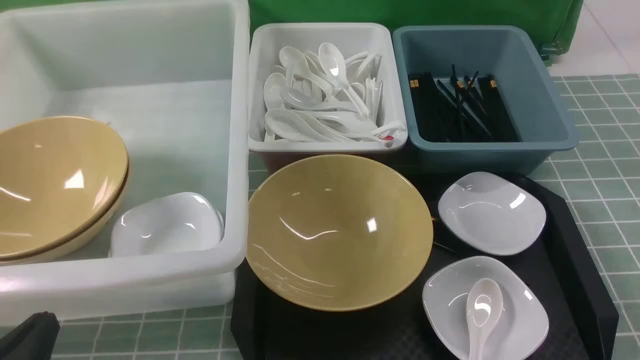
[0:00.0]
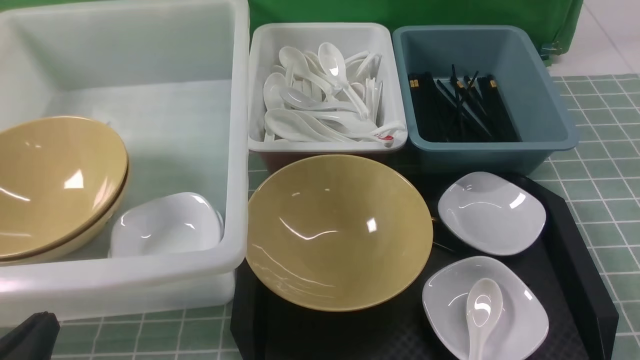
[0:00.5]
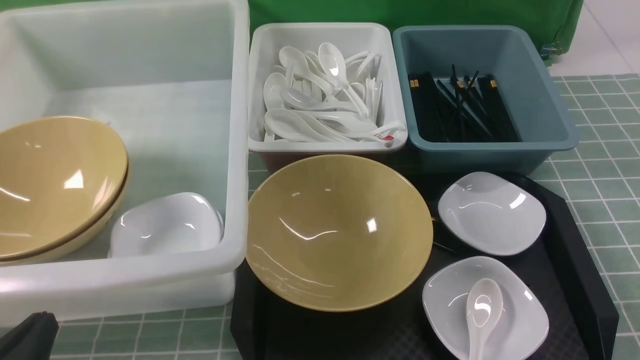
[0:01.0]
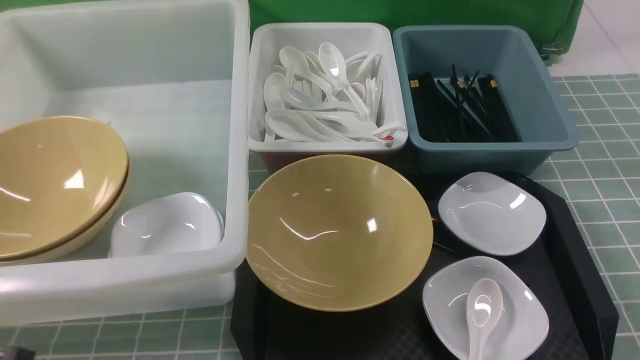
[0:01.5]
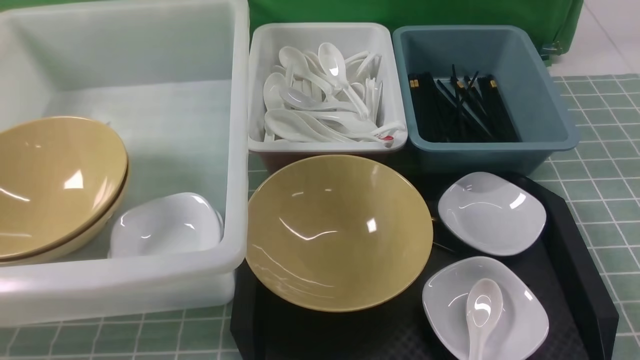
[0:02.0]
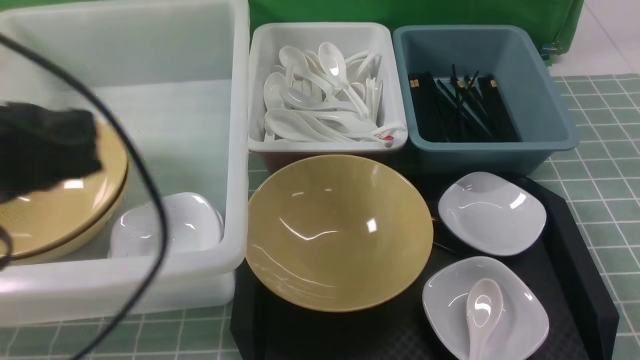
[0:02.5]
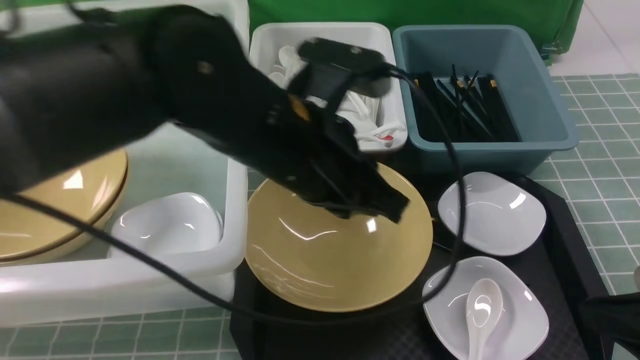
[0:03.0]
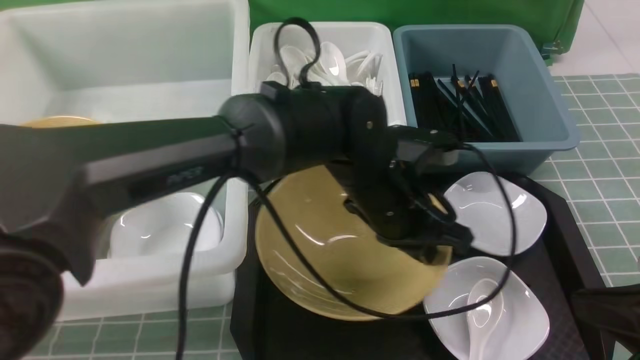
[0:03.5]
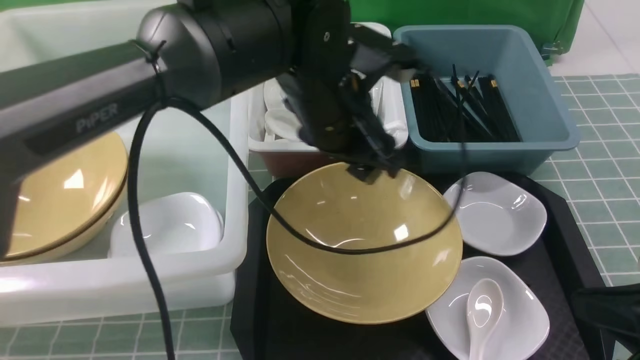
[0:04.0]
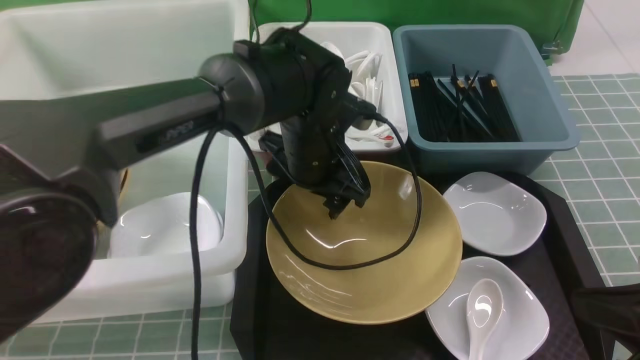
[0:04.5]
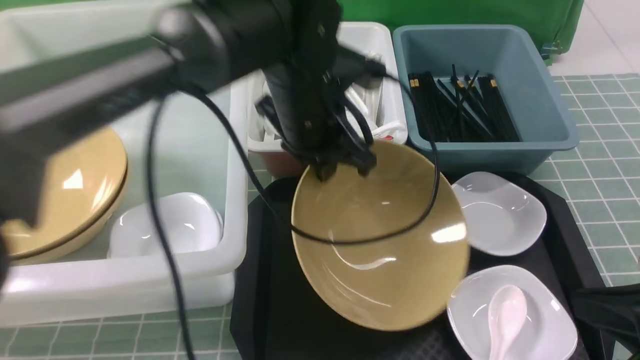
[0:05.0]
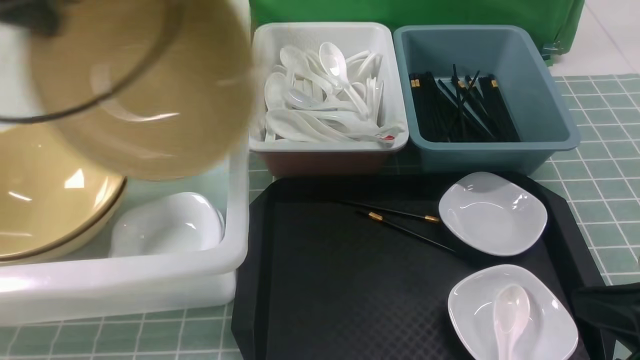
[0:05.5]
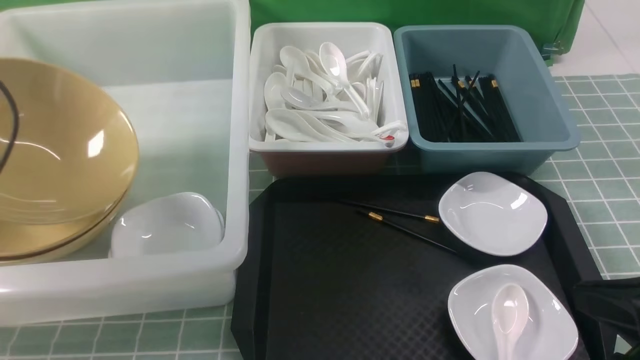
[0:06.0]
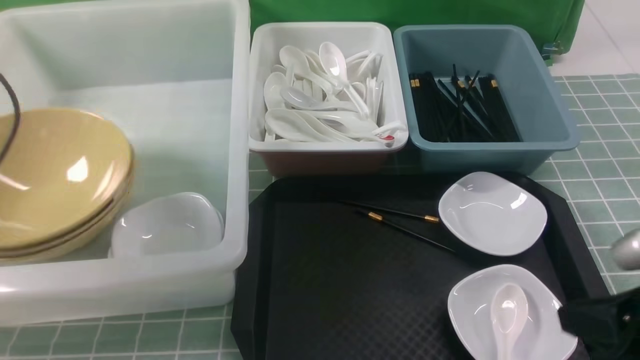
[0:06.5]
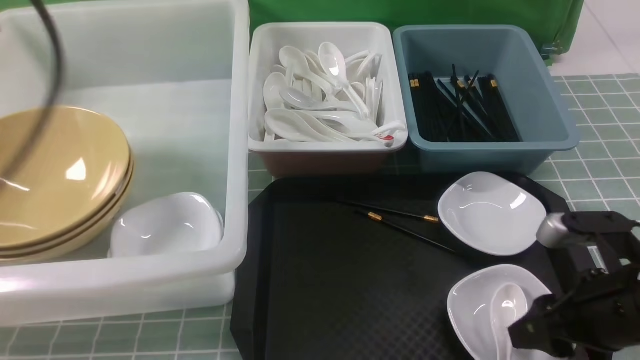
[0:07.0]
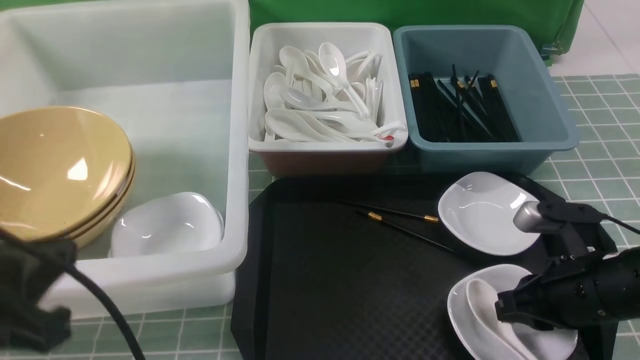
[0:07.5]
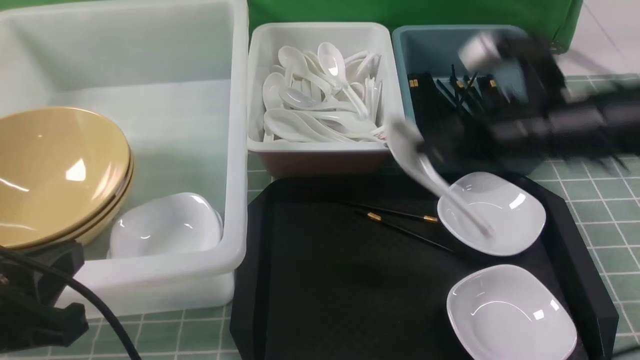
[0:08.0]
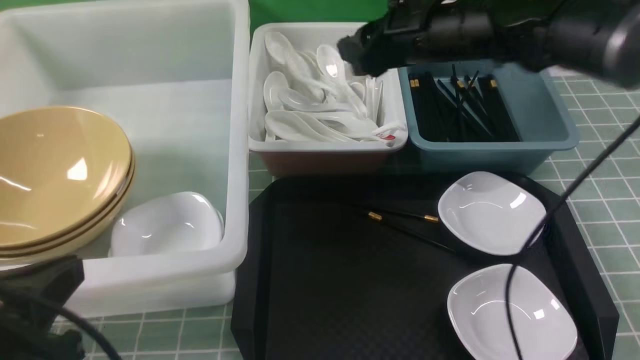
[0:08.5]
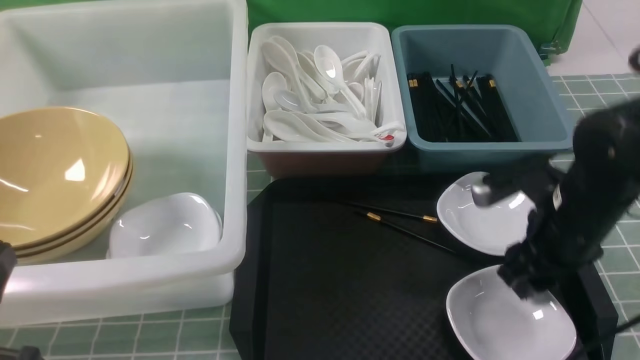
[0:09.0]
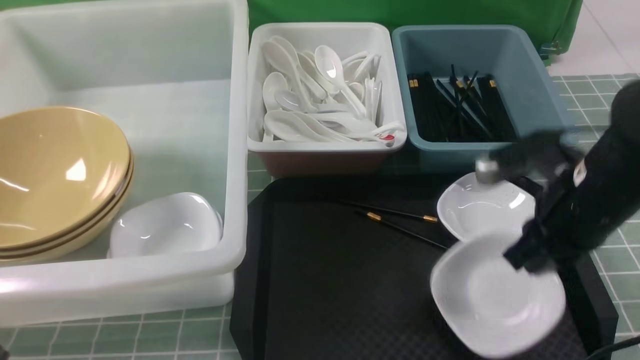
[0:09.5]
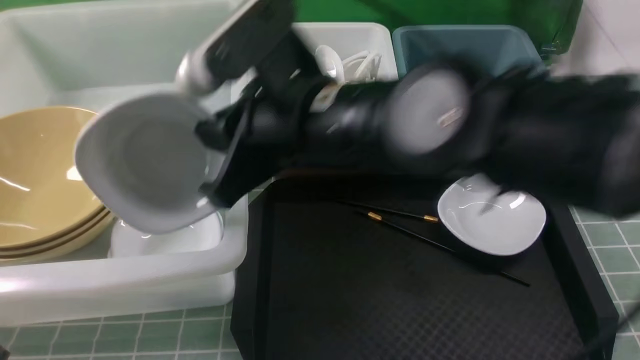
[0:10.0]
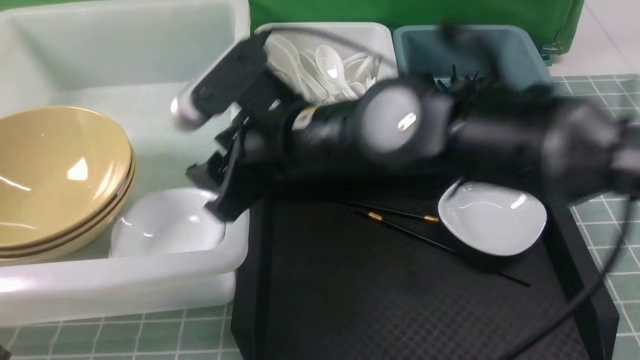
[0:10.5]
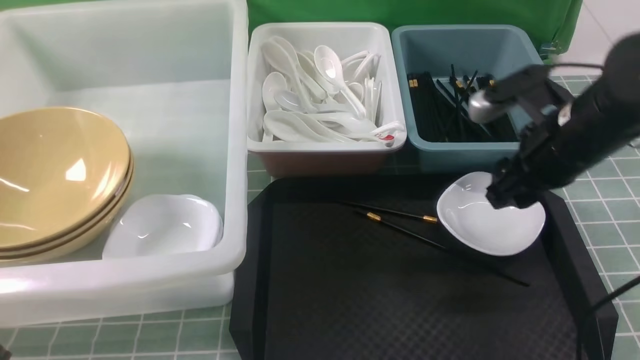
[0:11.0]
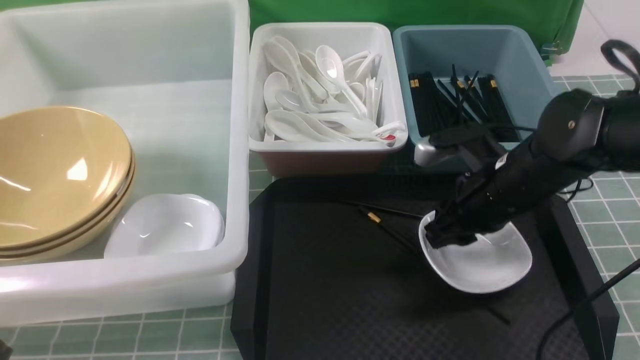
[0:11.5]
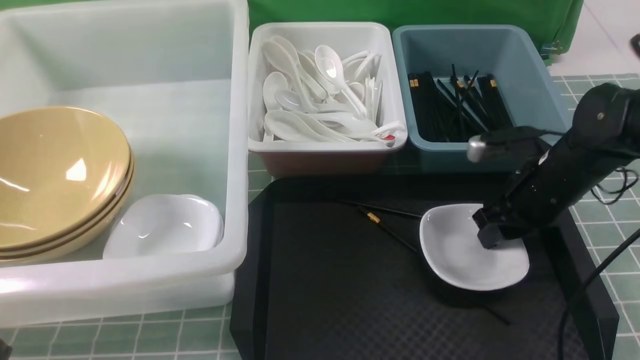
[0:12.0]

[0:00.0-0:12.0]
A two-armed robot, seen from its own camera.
Task of the whole recording: on blue table put chopsticks spoon bowls plates into blue grey white boxes.
Step, 0:00.0 to 0:05.0: use the left arm to grab the yellow noodle bowl on the left.
Step, 0:05.5 to 0:06.5: use the left arm to put the noodle bowl into the large storage box on the left.
Step, 0:07.0 to 0:07.5: use the right arm to grab the soup spoon in the middle.
Step, 0:08.0 to 0:08.5: use the right arm to put the soup spoon into the small storage box in the middle.
Step, 0:09.0 to 0:09.5: use the right arm to grab the plate.
Step, 0:10.0 to 0:10.5: use the right arm to put the plate into the large storage box on the left.
0:00.0 to 0:02.0: The left gripper shifts some 15 cm upward.
0:02.0 to 0:04.0: The right gripper heads forward and downward, covering about 10 cm; the left gripper goes roughly 40 cm forward and to the right, and opens.
0:04.0 to 0:06.0: The left gripper moves to the left, some 40 cm, and closes up.
0:06.0 to 0:08.0: The left gripper is displaced backward and to the right by about 20 cm, and opens, then closes once more. The right gripper moves forward and to the left, some 20 cm, and opens, then closes again.
0:08.0 to 0:10.0: The left gripper travels backward by approximately 5 cm, while the right gripper is displaced to the left by approximately 15 cm, and opens, then closes once more.
0:10.0 to 0:12.0: The right gripper goes roughly 25 cm to the right and downward, and opens up.

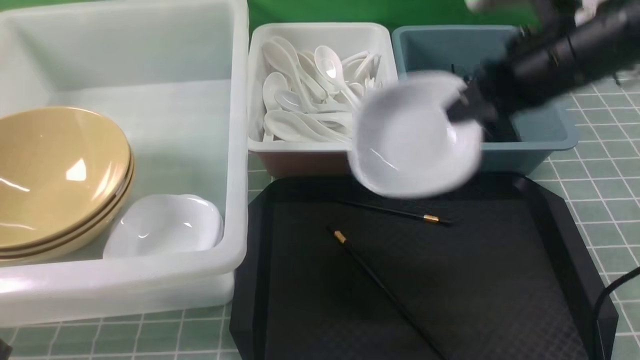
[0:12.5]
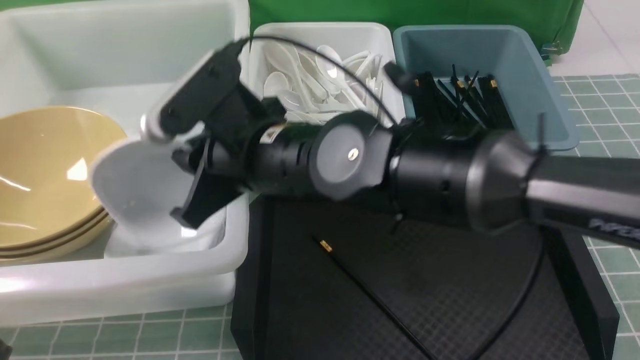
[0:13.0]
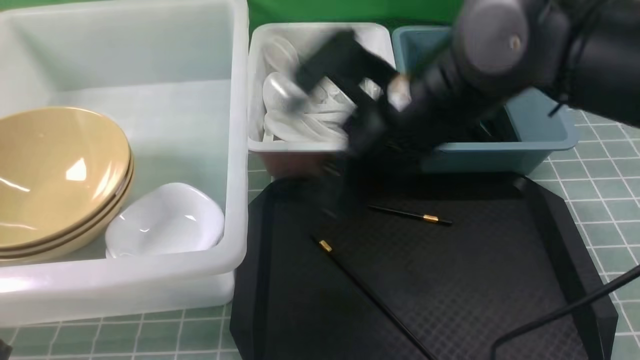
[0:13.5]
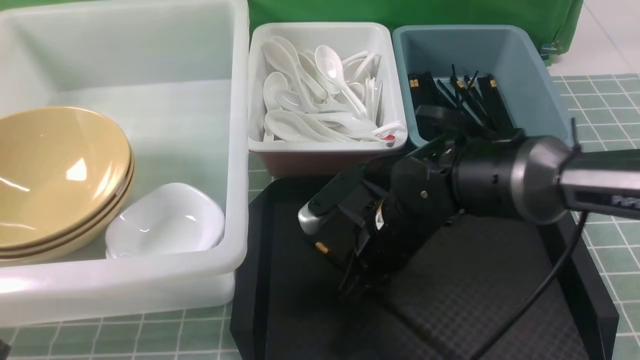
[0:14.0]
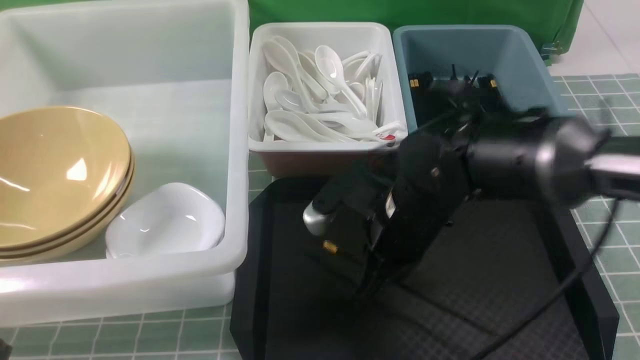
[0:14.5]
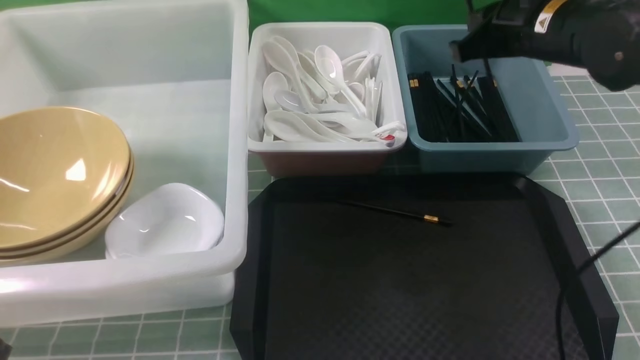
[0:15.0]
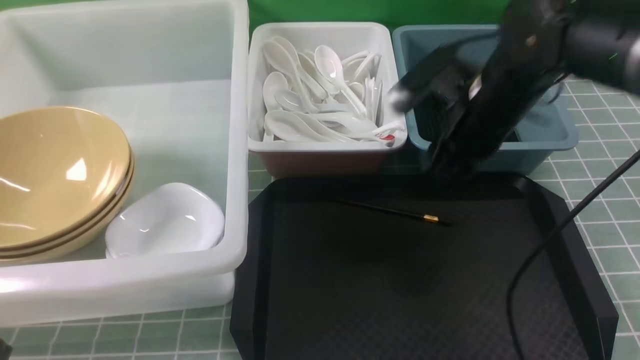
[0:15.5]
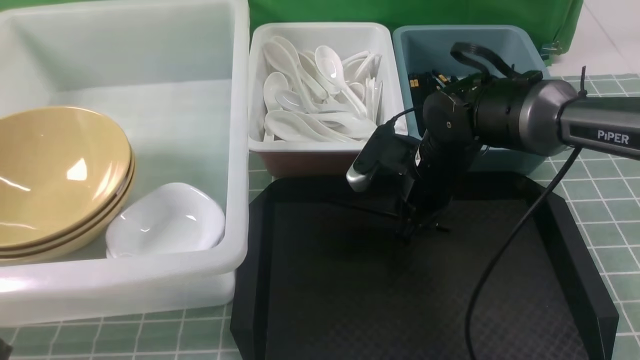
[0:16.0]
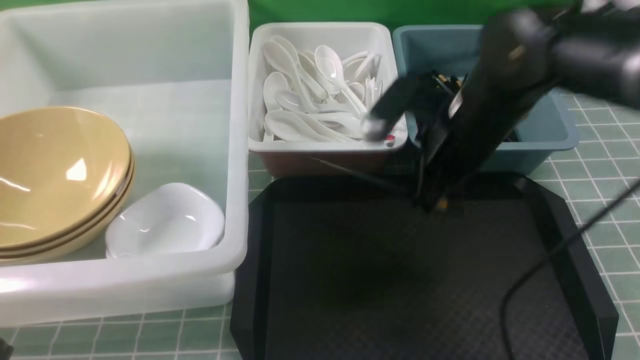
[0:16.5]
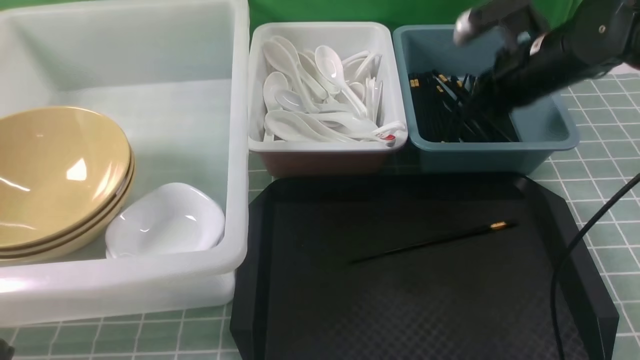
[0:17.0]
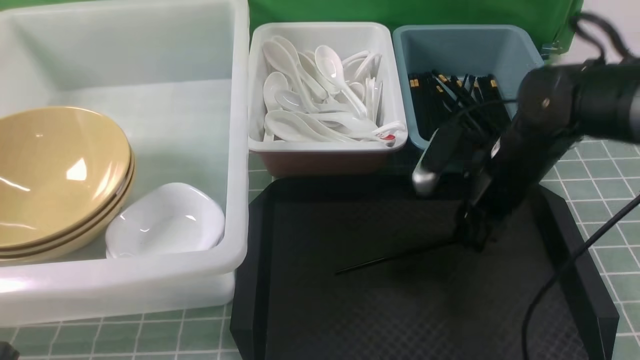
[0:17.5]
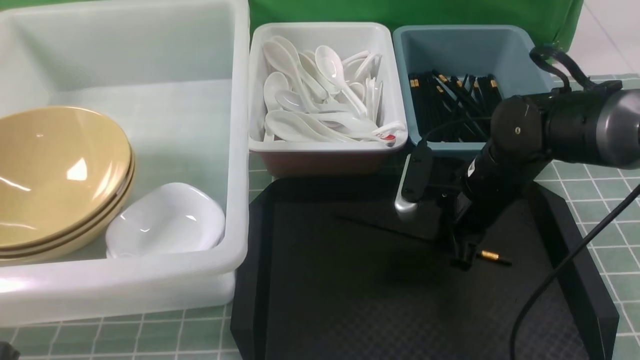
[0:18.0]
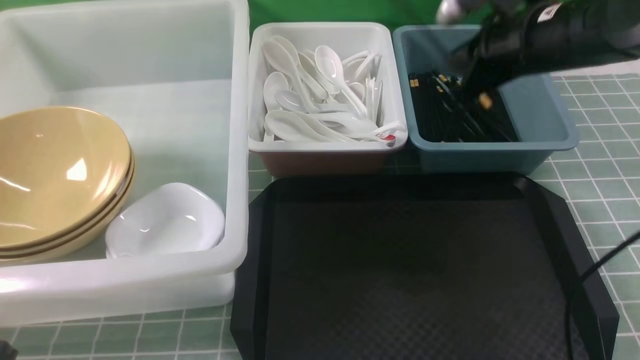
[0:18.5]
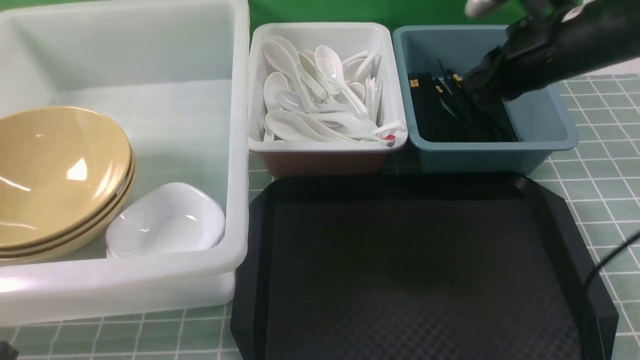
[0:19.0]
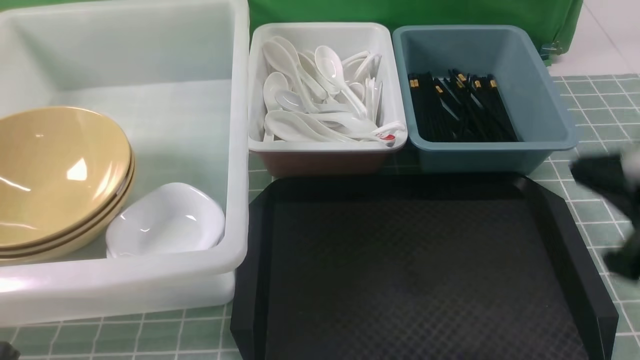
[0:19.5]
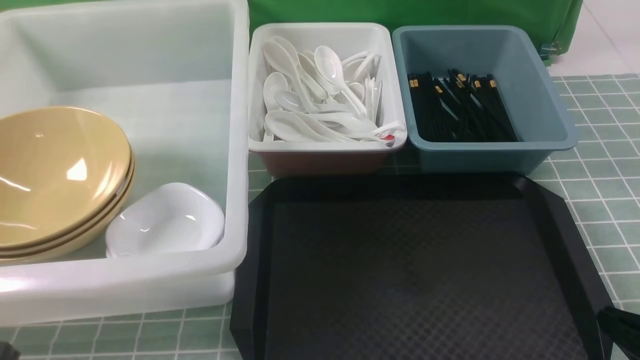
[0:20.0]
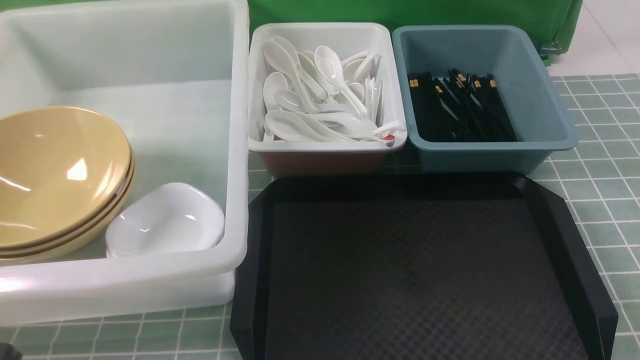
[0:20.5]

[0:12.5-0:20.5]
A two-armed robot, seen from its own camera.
Task of the whole recording: on blue table put chopsticks spoon bowls plates into blue grey white boxes.
Step, 0:12.5 to 0:13.0: use the right arm to put the plate into the large storage box on the left.
Step, 0:13.5 to 0:14.5: use the right arm to grab a chopstick.
Step, 0:15.5 to 0:18.0: use the right arm to grab a chopstick.
0:12.5 to 0:14.5: The right gripper travels downward and to the left by approximately 10 cm, and opens and closes again.
0:14.5 to 0:16.5: The right gripper goes up and down, roughly 15 cm each way, reversing 2 times, and opens, then closes again.
0:16.5 to 0:18.5: The right gripper goes about 5 cm to the right, goes downward and returns, approximately 10 cm each way, and opens, then closes once more.
0:18.5 to 0:20.5: The right gripper travels backward by about 30 cm.
